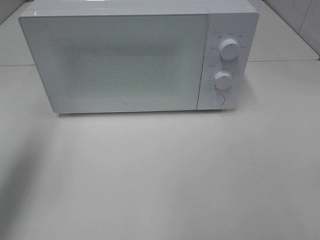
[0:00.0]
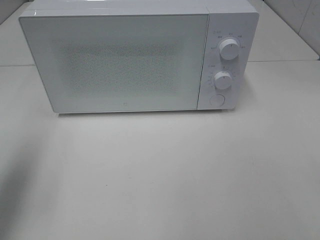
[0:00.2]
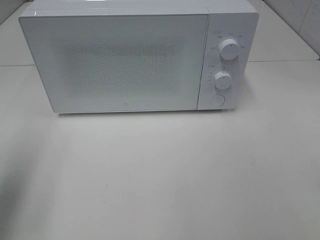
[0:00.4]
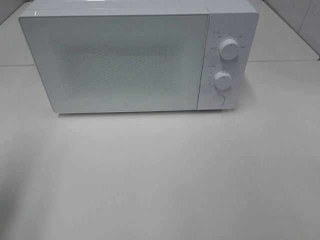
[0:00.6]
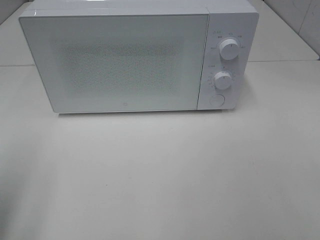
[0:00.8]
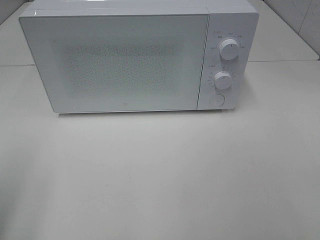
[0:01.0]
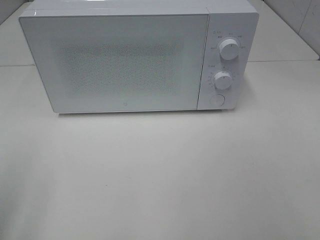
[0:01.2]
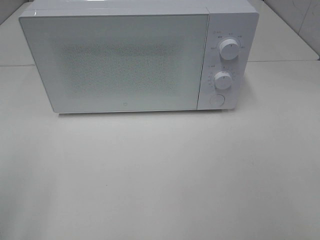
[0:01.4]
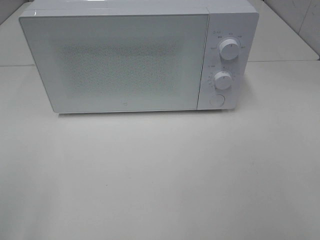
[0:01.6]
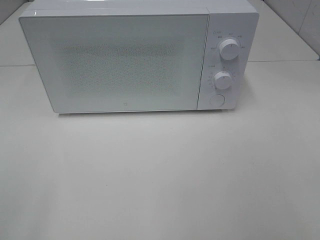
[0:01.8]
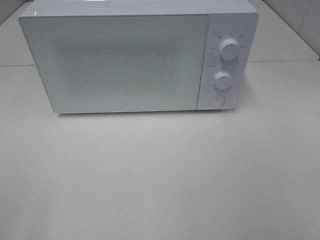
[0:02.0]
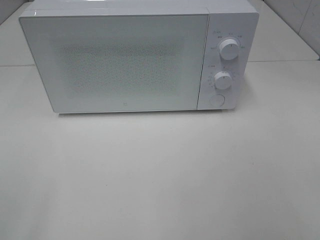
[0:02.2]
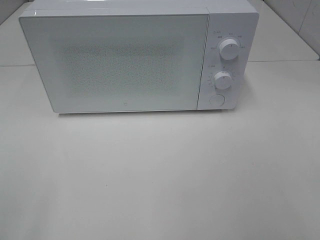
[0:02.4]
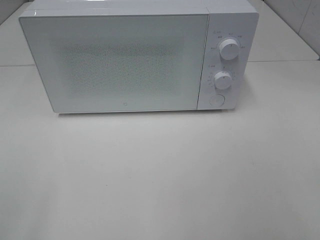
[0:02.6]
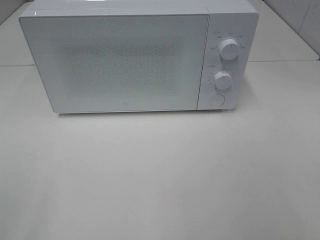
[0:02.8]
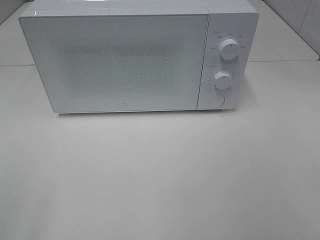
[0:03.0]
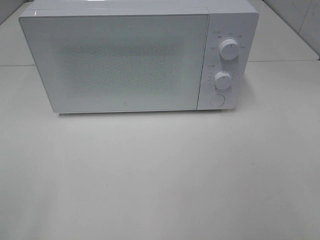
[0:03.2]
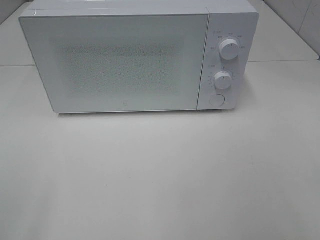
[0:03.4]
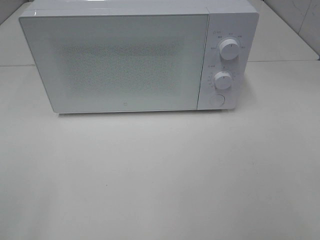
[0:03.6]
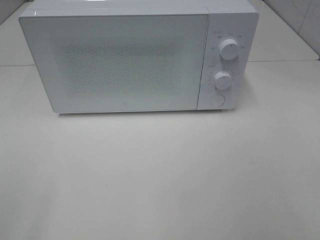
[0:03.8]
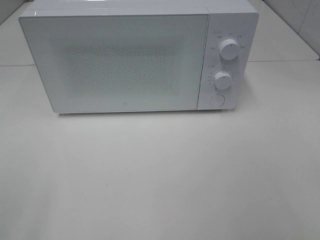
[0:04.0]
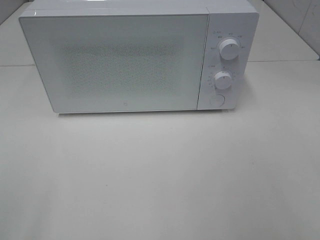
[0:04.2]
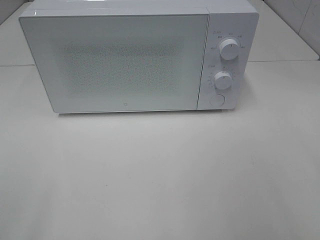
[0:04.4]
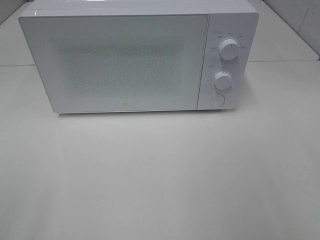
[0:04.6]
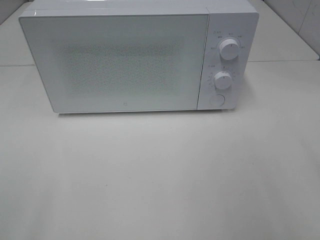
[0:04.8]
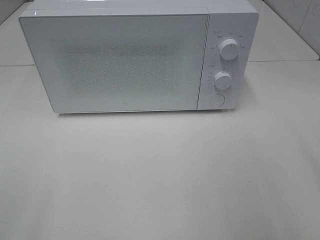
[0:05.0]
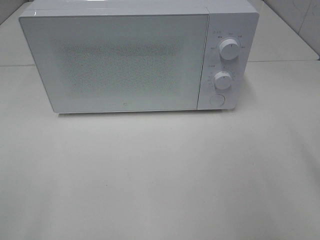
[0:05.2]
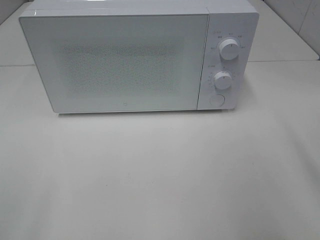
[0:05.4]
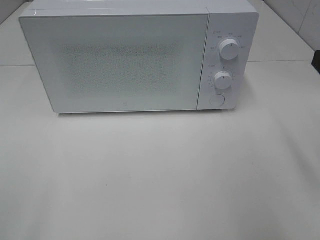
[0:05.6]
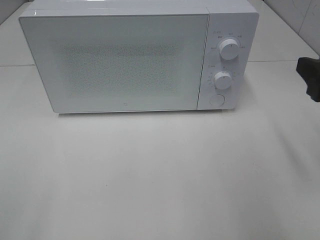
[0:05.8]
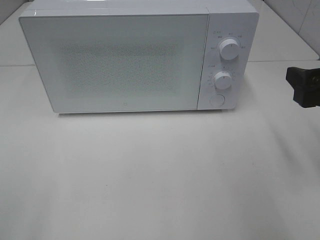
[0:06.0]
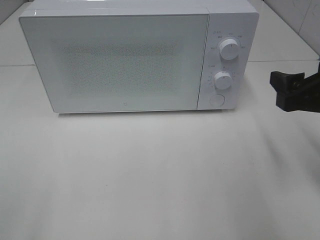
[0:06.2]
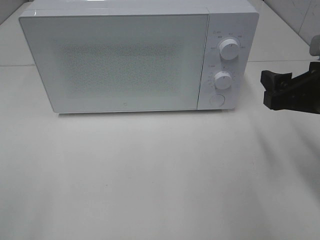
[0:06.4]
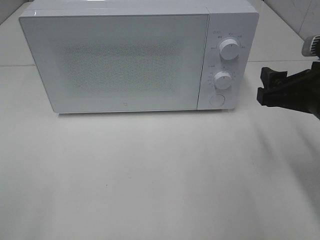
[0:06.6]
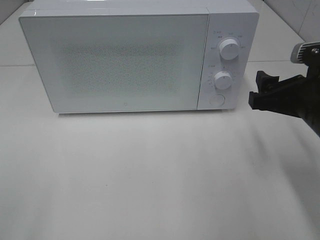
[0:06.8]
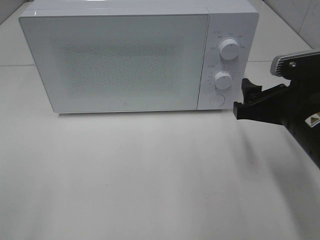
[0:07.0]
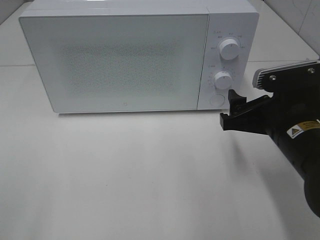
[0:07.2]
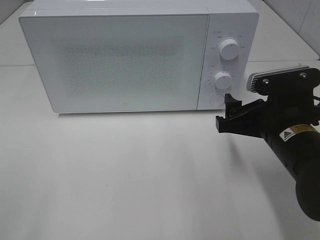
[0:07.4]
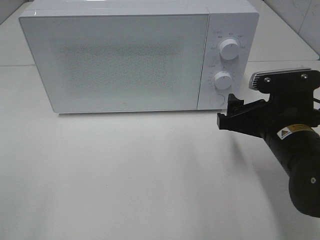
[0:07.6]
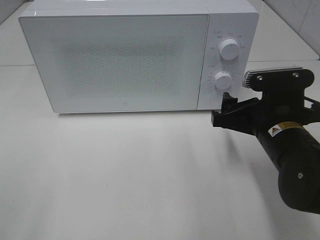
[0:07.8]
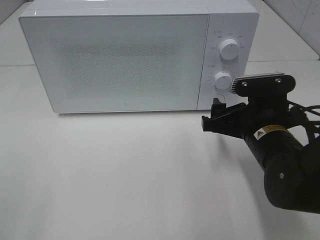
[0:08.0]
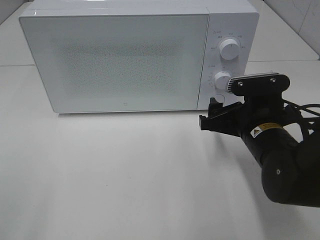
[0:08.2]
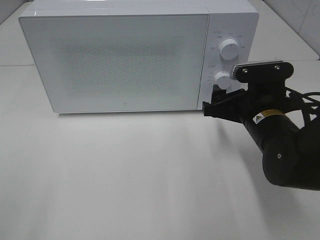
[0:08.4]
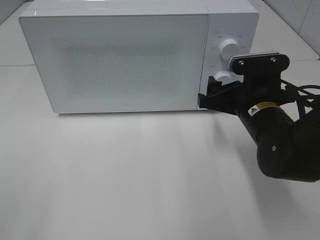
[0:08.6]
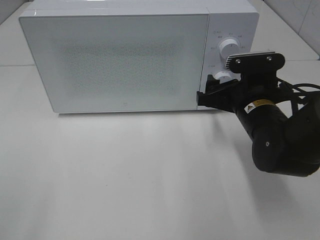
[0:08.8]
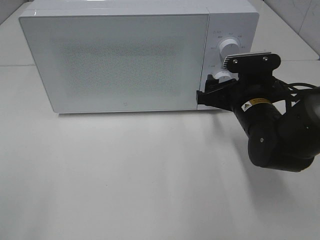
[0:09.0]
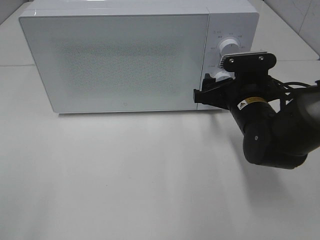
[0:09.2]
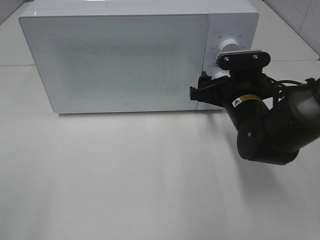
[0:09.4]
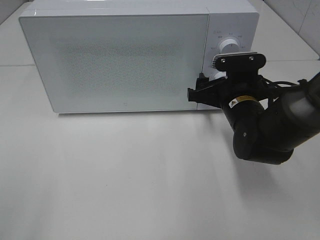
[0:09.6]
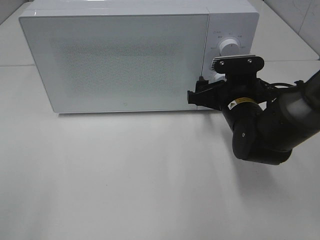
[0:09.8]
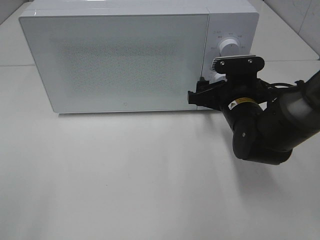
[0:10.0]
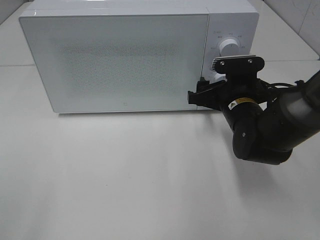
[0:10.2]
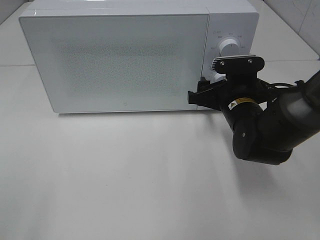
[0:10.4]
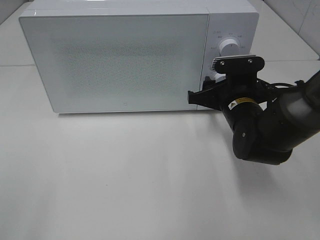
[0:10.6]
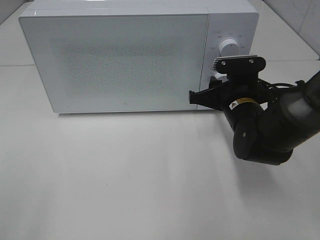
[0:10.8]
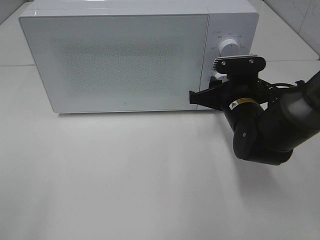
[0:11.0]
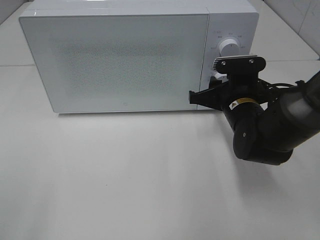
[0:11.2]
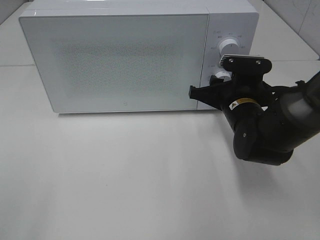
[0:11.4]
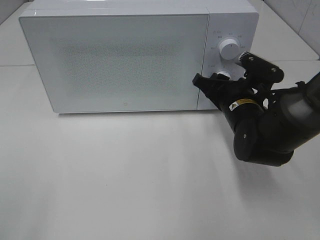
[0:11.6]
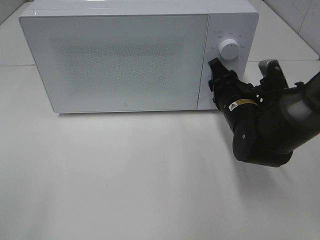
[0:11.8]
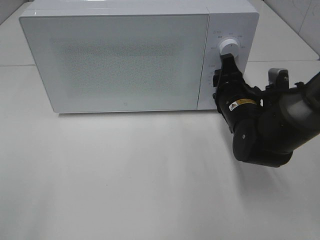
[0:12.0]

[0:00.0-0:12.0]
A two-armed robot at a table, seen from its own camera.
Task of the whole recording: Heat the burger.
0:00.0 to 0:01.6: The left gripper goes approximately 20 cm backward.
0:04.4 to 0:06.0: The right gripper shifts roughly 20 cm forward and downward.
0:06.0 to 0:07.6: The right gripper moves to the left and downward, about 10 cm.
0:07.6 to 0:09.0: The right gripper moves forward, approximately 10 cm.
0:09.0 to 0:10.4: The grippers stay close to where they were, moving slightly.
0:10.4 to 0:12.0: The right gripper closes.

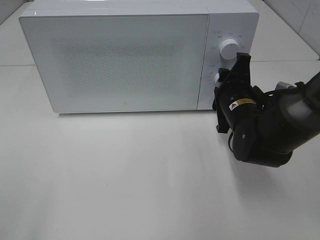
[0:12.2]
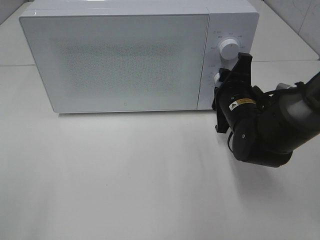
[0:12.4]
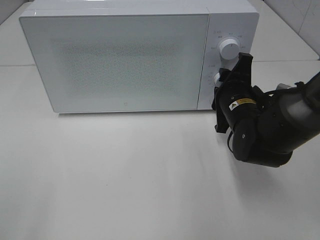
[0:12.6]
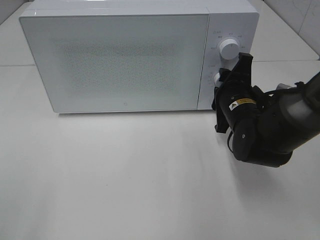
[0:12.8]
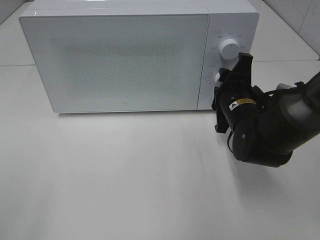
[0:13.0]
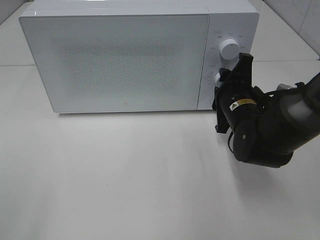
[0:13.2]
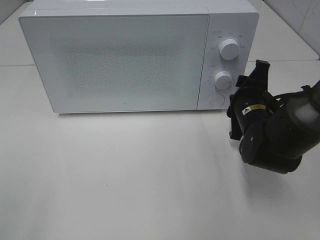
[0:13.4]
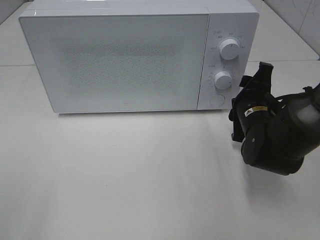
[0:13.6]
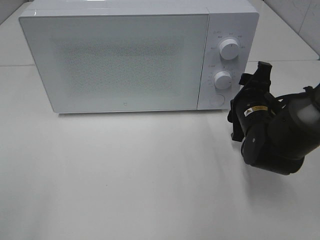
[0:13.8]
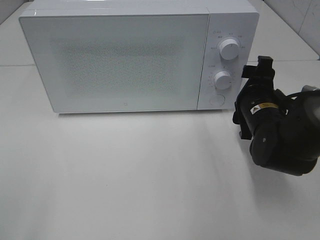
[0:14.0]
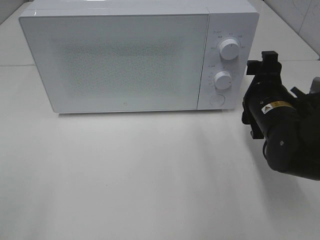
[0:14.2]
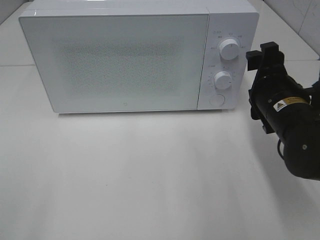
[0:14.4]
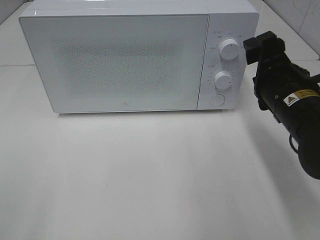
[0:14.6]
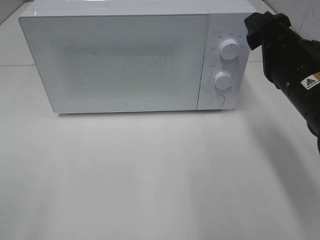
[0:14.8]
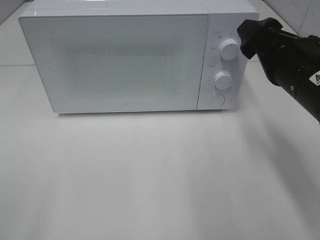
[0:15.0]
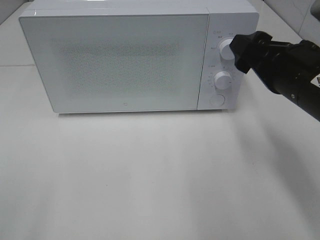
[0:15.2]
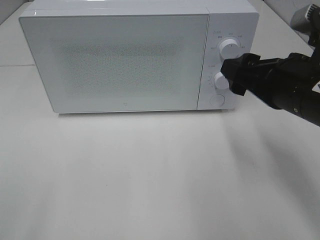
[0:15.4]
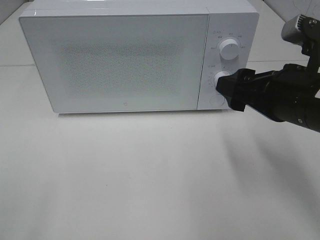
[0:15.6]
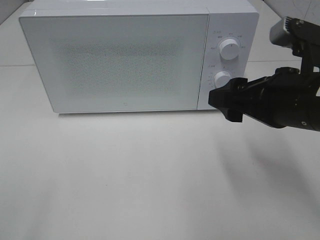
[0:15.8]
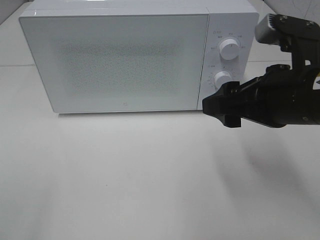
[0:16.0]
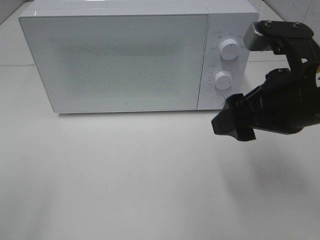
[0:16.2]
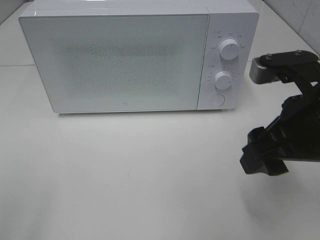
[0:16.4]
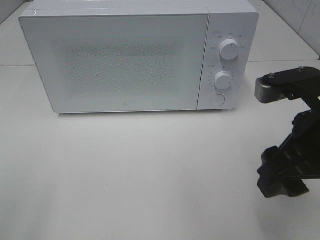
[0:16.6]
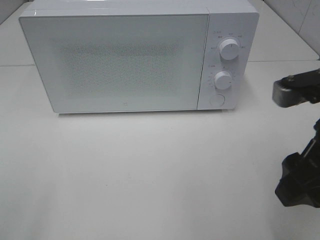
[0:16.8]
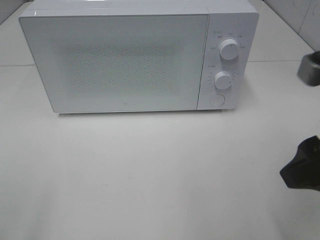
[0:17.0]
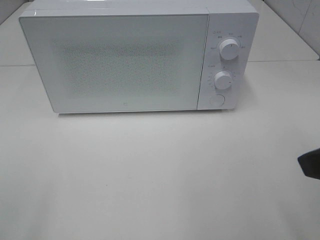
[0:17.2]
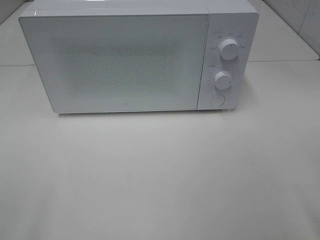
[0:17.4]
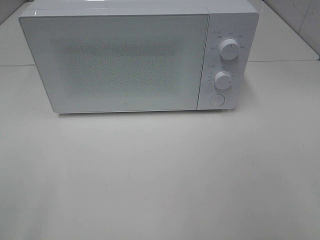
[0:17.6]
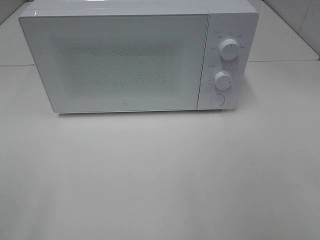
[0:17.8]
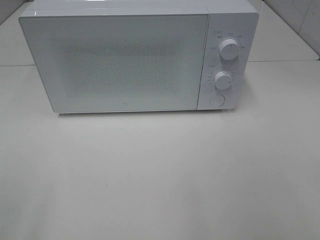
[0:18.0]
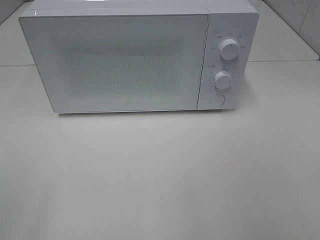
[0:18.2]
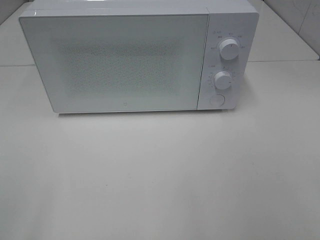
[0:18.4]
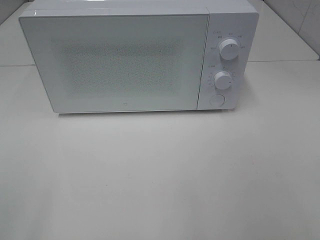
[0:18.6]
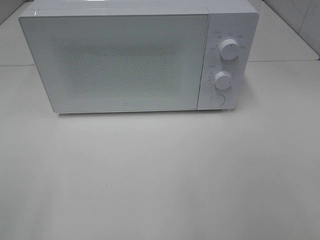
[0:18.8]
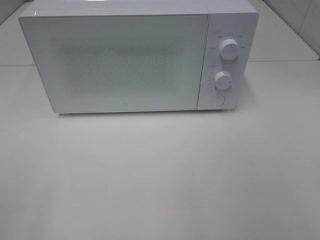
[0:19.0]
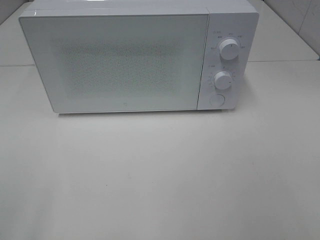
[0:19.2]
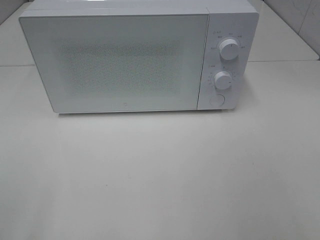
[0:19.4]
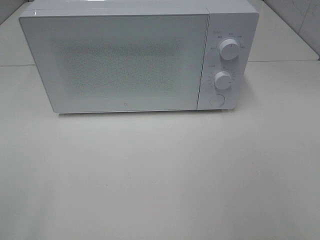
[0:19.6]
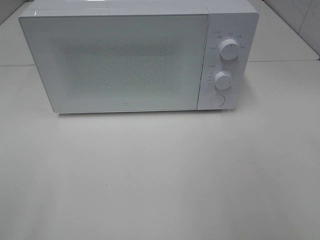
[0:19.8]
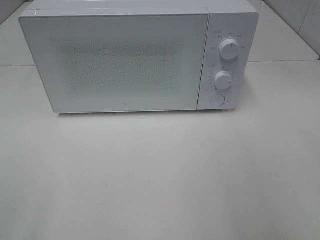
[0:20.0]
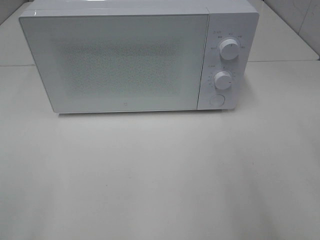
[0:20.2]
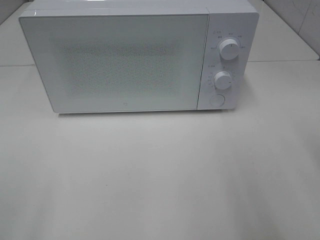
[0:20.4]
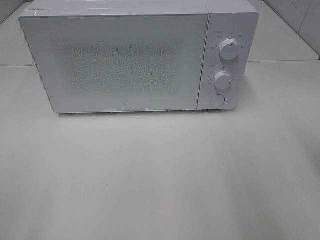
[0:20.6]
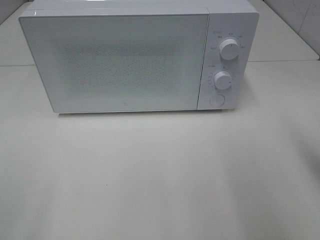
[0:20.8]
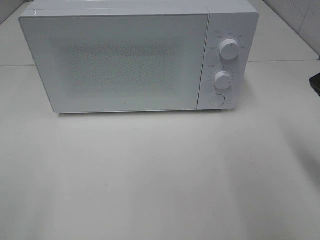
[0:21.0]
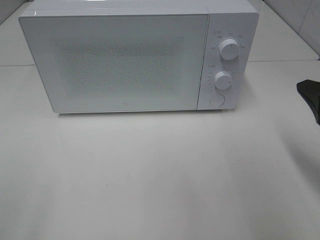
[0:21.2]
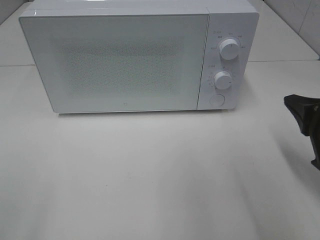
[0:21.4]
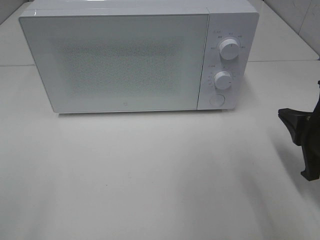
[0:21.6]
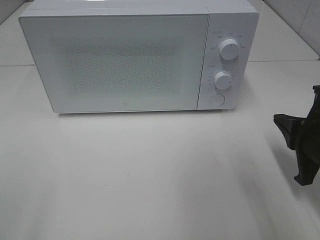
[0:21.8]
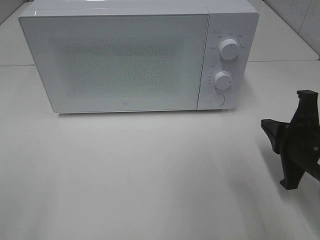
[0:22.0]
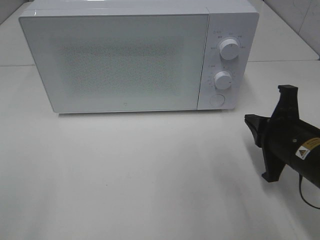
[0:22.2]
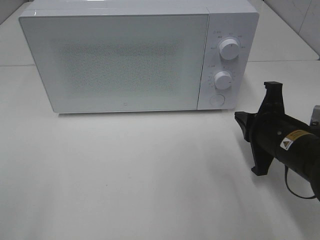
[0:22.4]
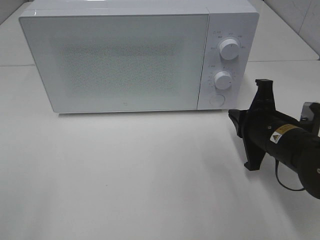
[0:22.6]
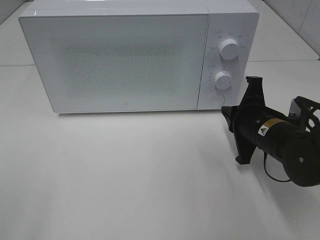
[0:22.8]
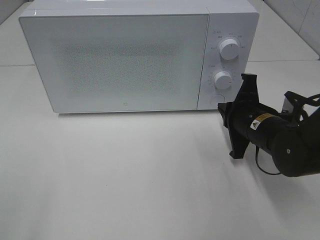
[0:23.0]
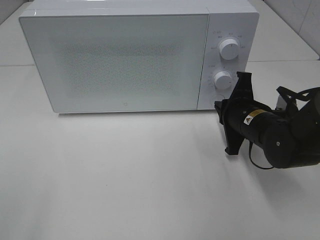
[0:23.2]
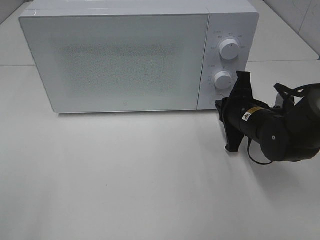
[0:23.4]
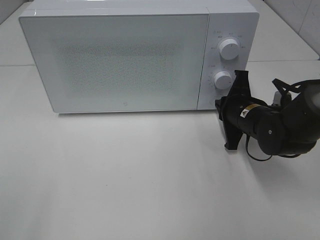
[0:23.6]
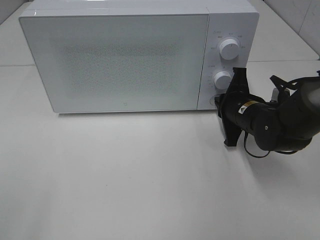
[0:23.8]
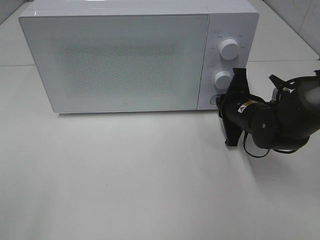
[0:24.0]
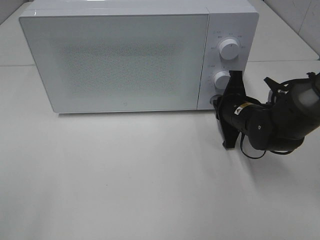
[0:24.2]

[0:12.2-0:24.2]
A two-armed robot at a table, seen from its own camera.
Task of the whole recording: Heat the burger.
0:12.2 to 0:13.8: The grippers move only a little.
0:13.8 to 0:15.2: The right gripper is displaced upward and backward by approximately 15 cm.
0:15.2 to 0:16.6: The right gripper heads backward, covering approximately 5 cm.
0:16.6 to 0:18.2: The right gripper travels backward and to the right by roughly 20 cm.
0:19.8 to 0:21.2: The right gripper moves downward and forward, approximately 20 cm, and closes.
0:21.2 to 0:22.6: The right gripper travels downward, forward and to the left by approximately 15 cm.
0:22.6 to 0:24.2: The right gripper shifts approximately 10 cm forward.
